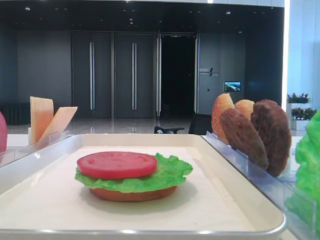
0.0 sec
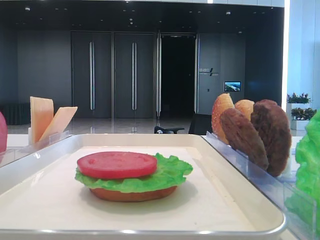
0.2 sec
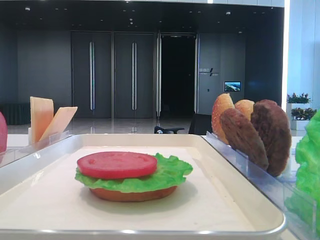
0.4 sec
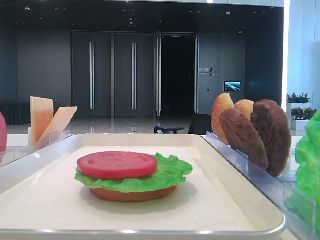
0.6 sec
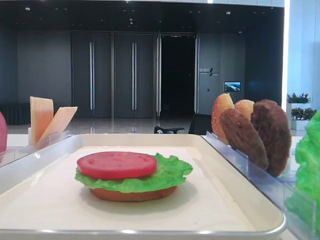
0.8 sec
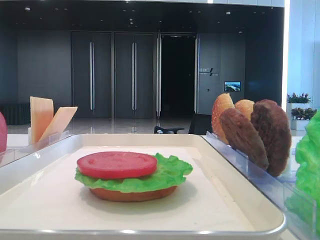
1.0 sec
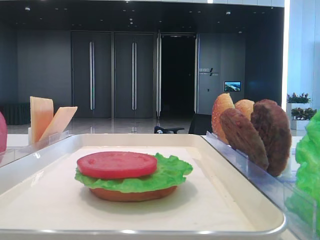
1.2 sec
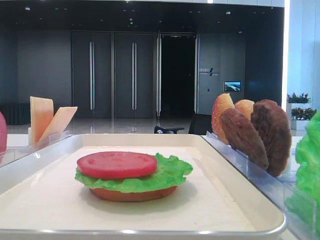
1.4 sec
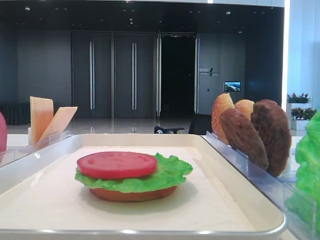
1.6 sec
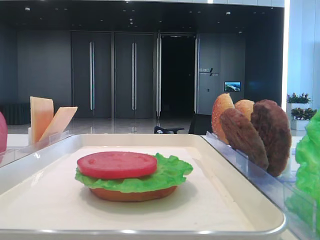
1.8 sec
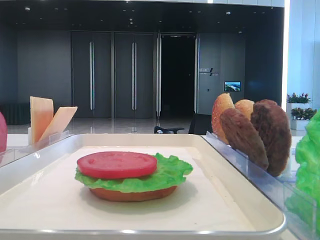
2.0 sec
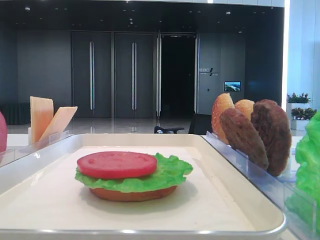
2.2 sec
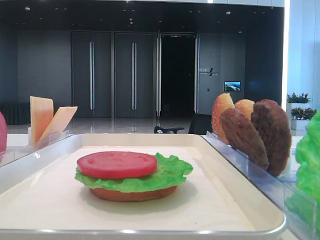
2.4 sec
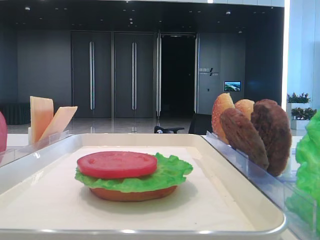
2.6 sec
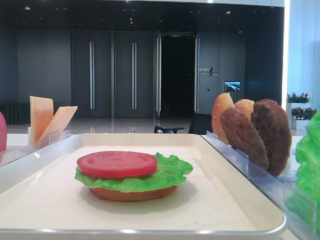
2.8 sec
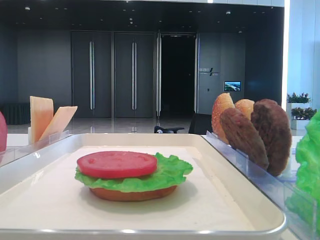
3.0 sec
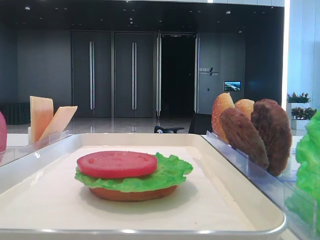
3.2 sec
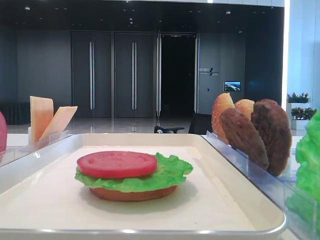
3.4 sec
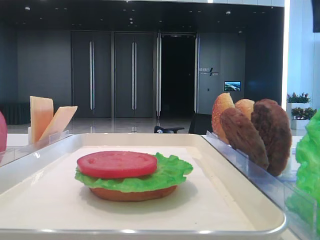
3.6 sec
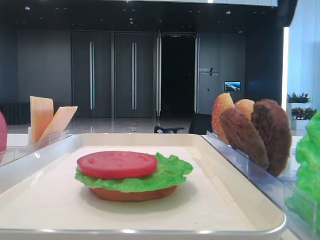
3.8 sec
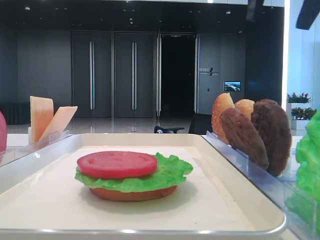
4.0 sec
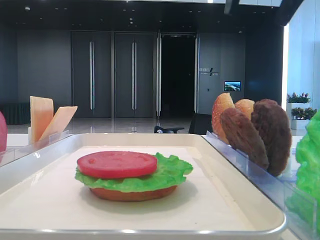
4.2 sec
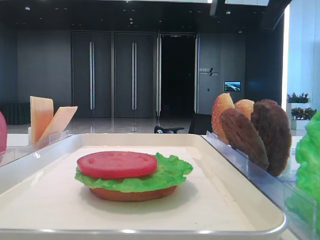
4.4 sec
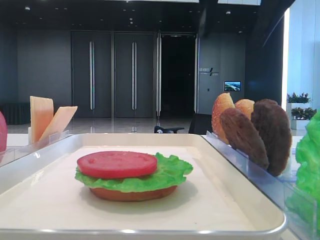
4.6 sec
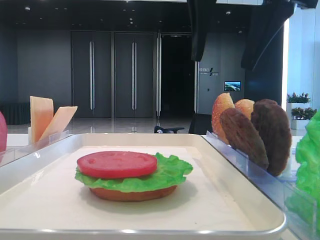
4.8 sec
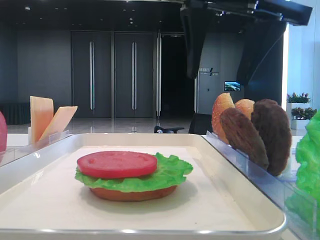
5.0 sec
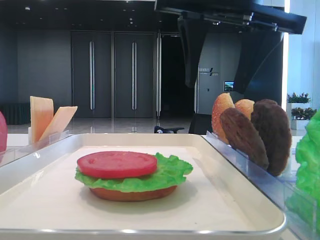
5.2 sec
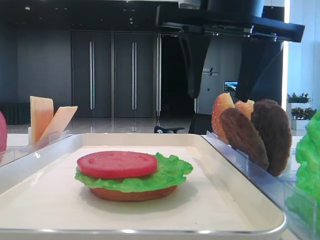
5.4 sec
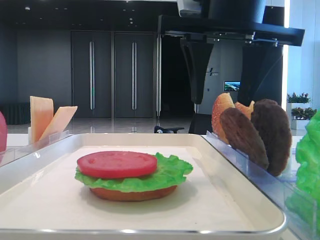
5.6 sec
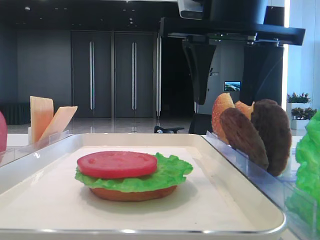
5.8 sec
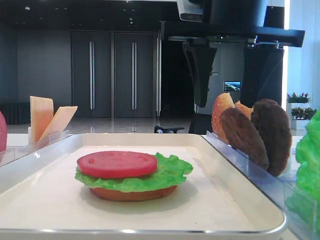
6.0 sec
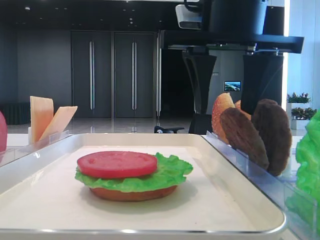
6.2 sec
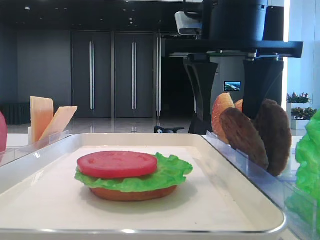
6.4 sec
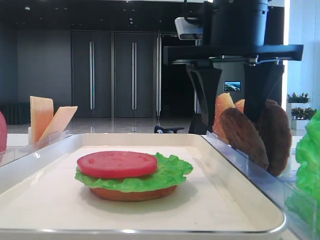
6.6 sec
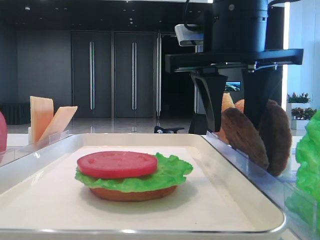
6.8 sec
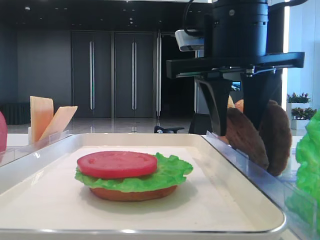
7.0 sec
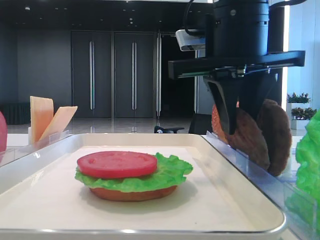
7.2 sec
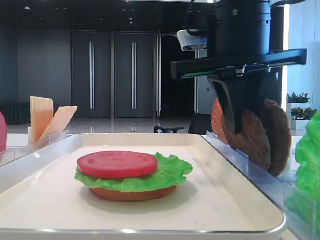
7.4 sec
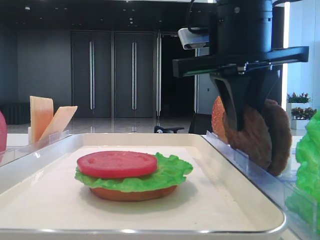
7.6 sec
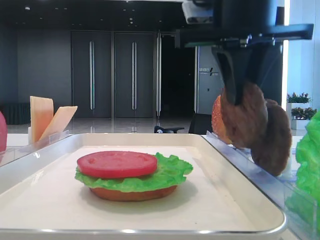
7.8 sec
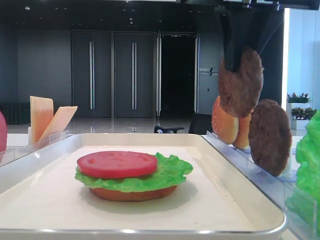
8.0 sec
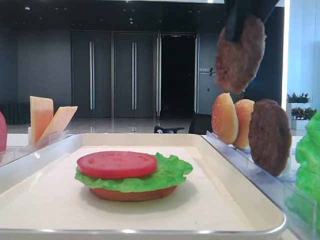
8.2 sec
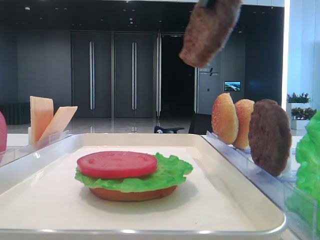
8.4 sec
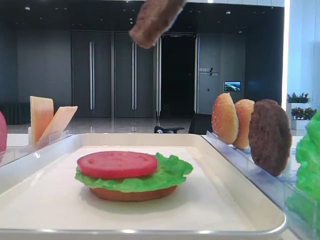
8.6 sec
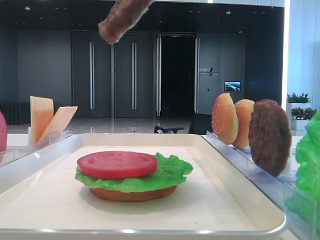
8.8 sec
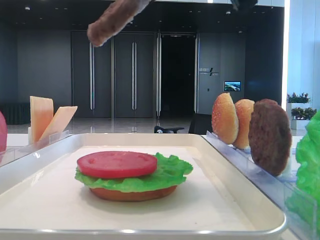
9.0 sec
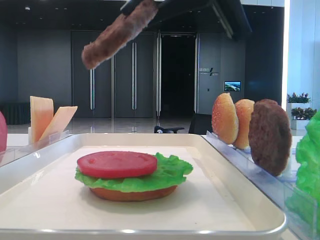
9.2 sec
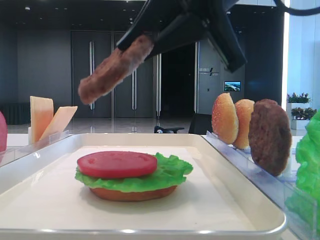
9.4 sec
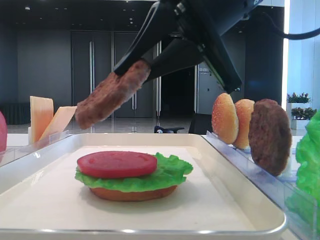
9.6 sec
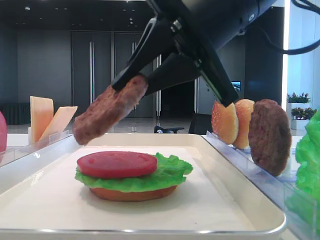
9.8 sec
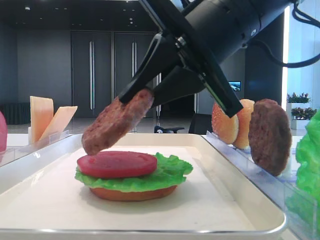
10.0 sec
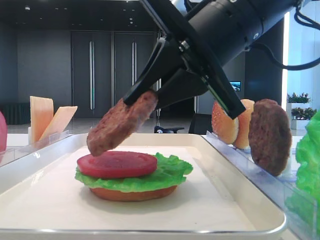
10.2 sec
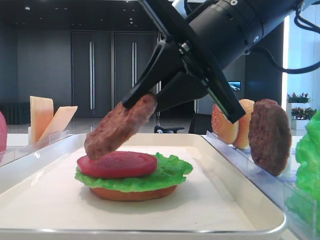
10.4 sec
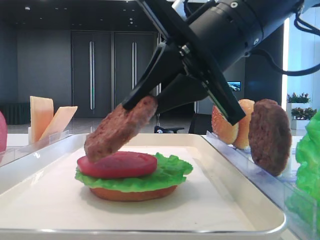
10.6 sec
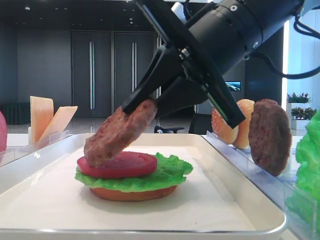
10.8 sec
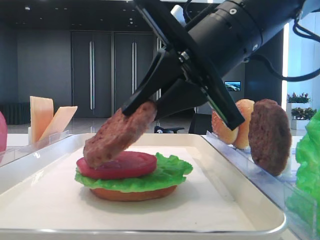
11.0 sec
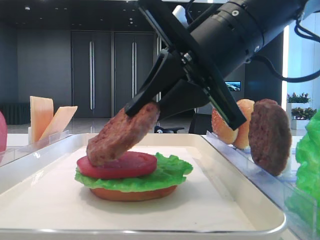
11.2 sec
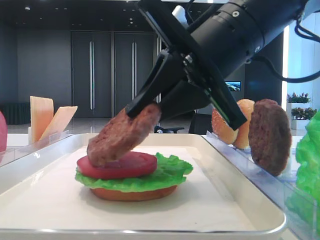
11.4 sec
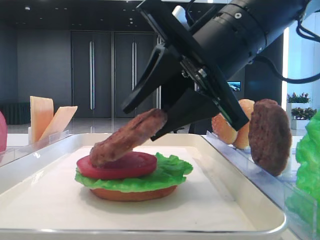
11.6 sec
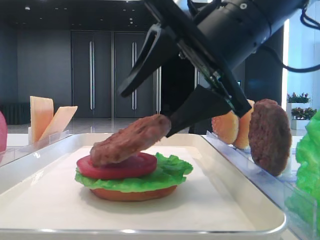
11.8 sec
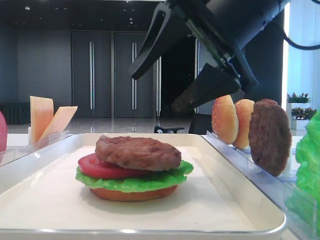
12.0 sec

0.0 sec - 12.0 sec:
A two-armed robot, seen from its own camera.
Step, 0.0 sec - 7.4 sec: Grab the patty with the right hand.
Step, 7.6 sec - 11.8 sec: Place the patty on the tomato slice with the right hand.
4.4 sec - 6.0 sec: The right gripper is displaced downward by roughly 10 cm.
6.0 sec - 7.6 sec: The right gripper closes.
7.6 sec - 9.0 sec: The right gripper is displaced upward and backward by approximately 10 cm.
9.0 sec - 10.4 sec: The right gripper shifts some 10 cm downward.
10.4 sec - 12.0 sec: The right gripper opens its fingers.

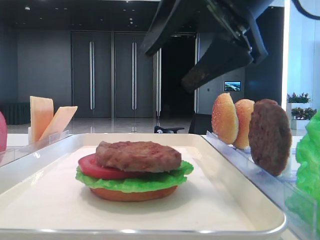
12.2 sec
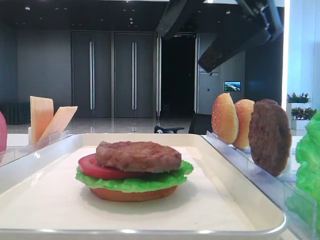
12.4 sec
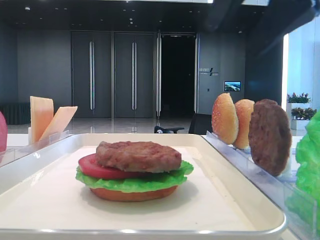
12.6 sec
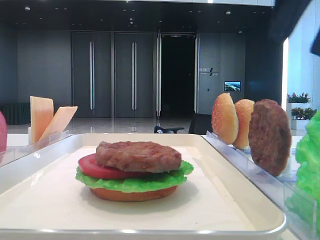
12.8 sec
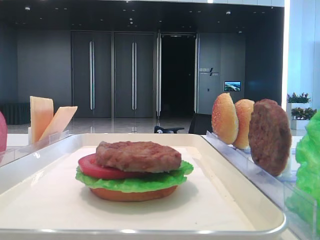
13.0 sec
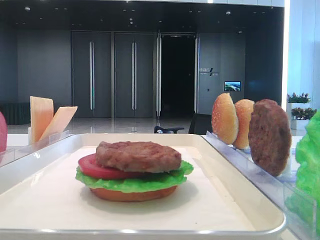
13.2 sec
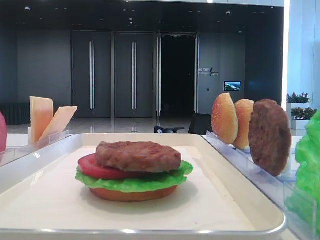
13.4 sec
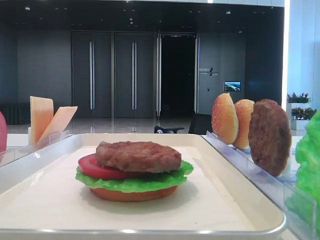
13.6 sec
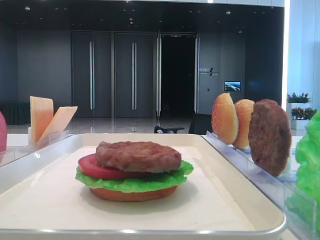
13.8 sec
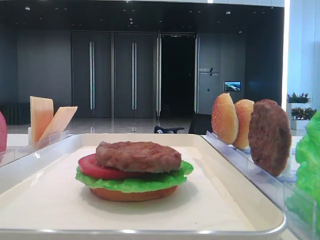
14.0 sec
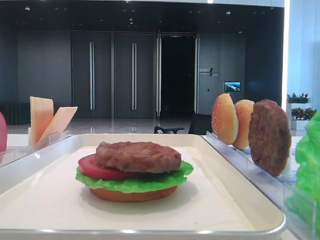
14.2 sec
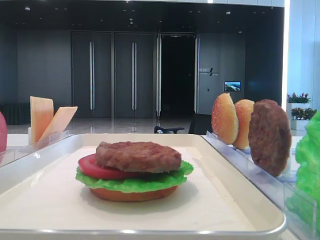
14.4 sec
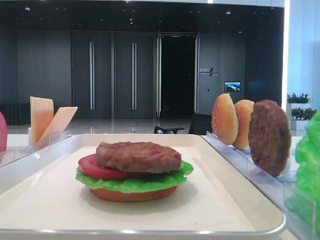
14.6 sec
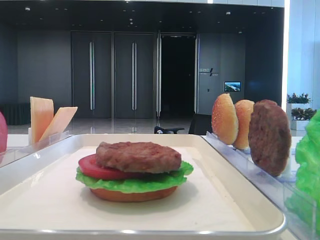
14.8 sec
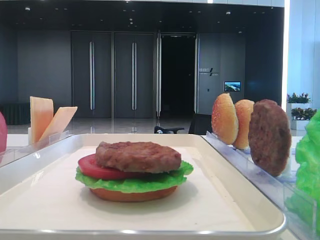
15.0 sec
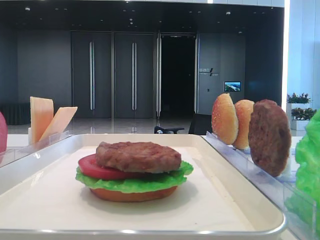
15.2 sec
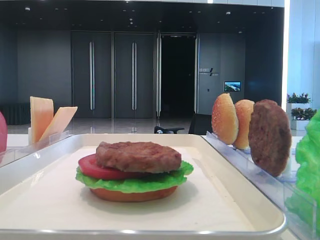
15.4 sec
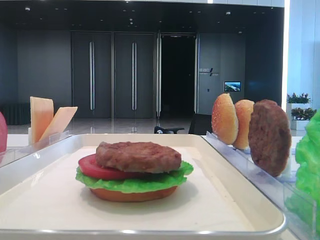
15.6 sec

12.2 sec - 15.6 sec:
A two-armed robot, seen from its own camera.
12.2 sec - 13.8 sec: The right gripper moves to the right, about 25 cm.

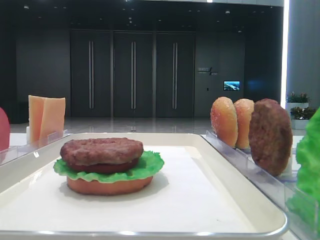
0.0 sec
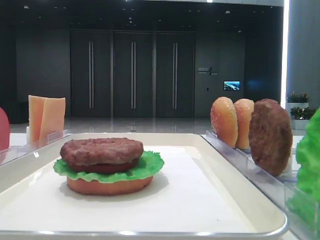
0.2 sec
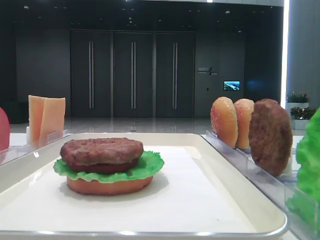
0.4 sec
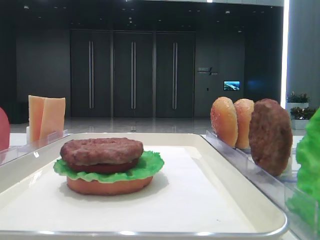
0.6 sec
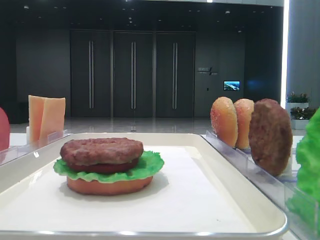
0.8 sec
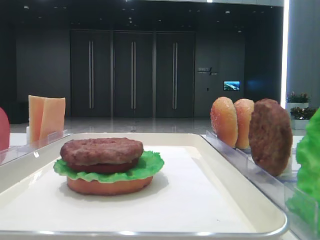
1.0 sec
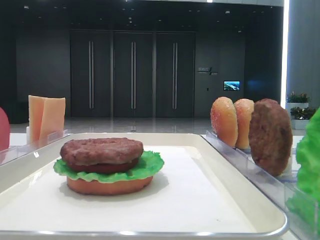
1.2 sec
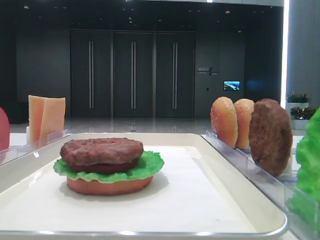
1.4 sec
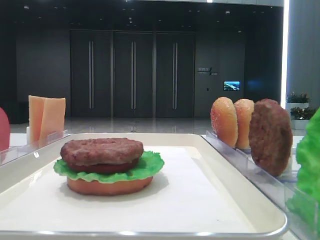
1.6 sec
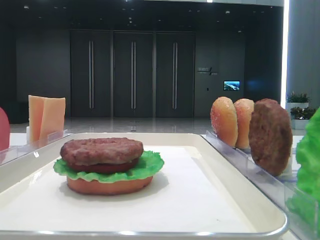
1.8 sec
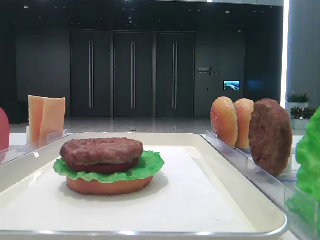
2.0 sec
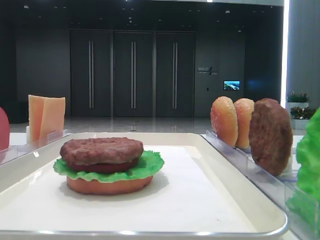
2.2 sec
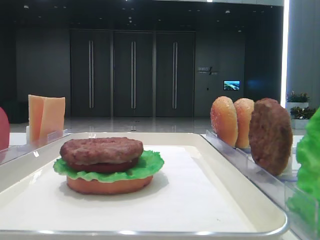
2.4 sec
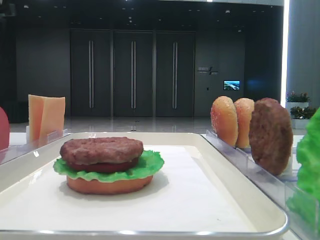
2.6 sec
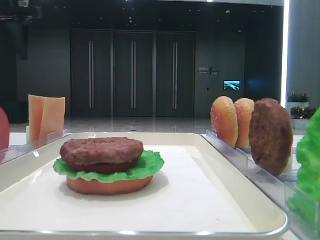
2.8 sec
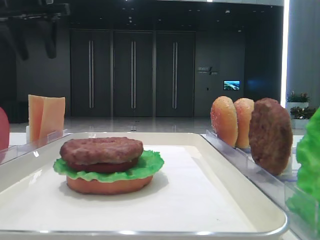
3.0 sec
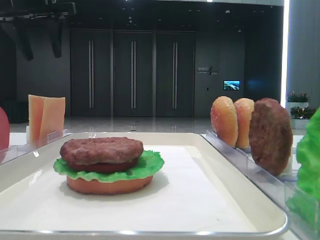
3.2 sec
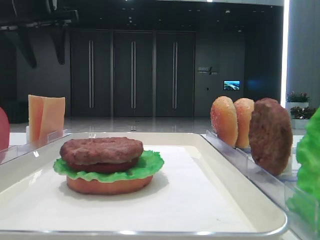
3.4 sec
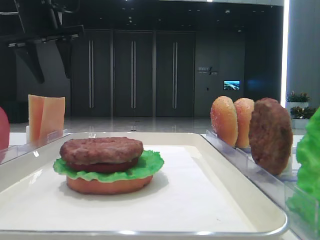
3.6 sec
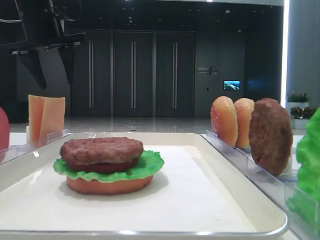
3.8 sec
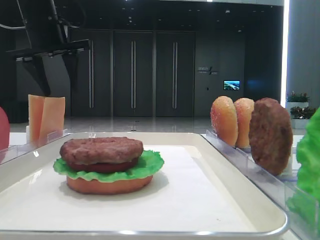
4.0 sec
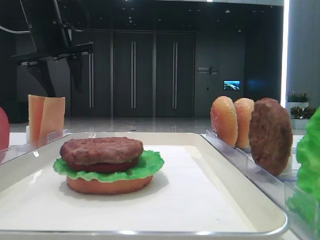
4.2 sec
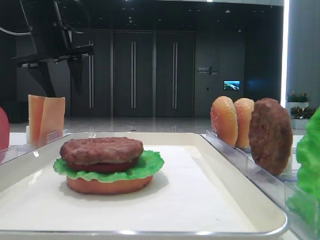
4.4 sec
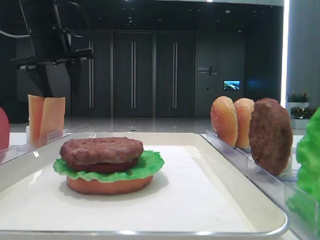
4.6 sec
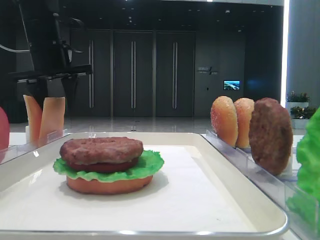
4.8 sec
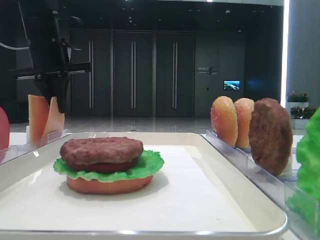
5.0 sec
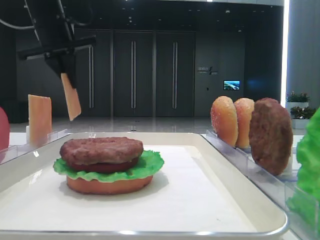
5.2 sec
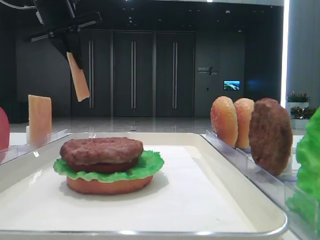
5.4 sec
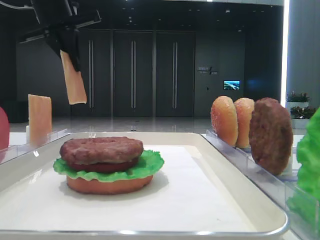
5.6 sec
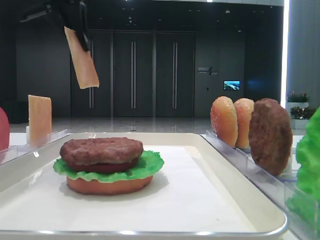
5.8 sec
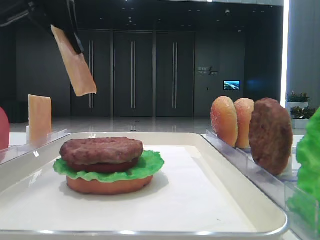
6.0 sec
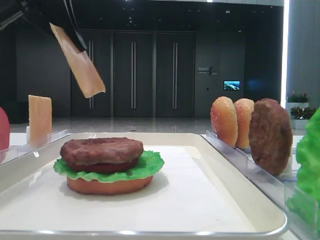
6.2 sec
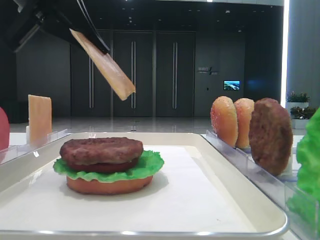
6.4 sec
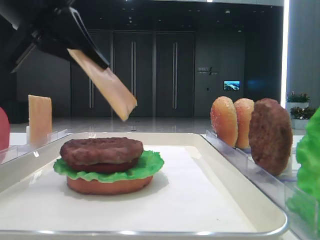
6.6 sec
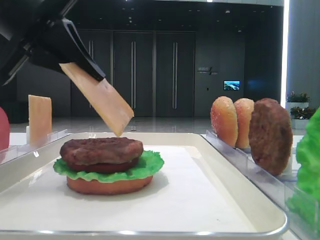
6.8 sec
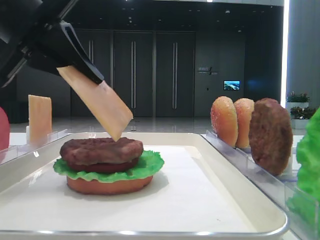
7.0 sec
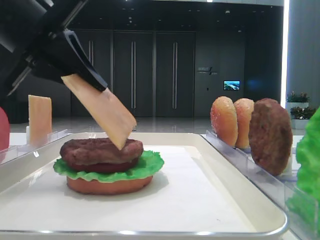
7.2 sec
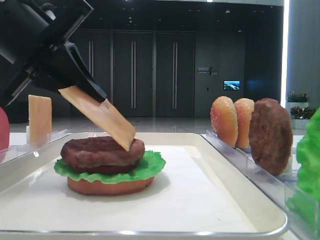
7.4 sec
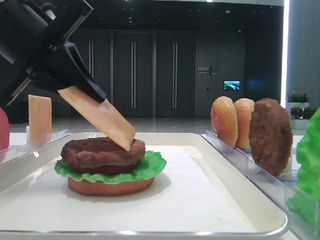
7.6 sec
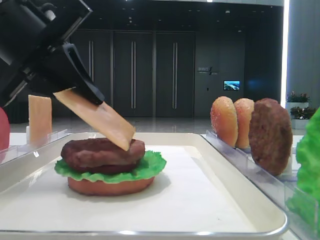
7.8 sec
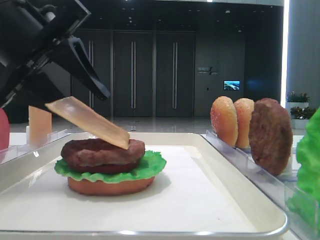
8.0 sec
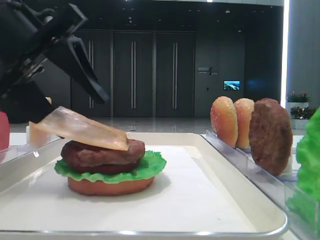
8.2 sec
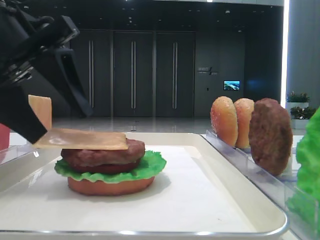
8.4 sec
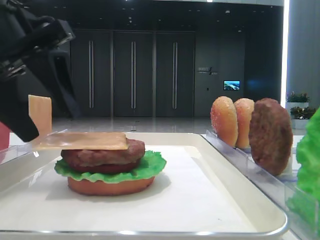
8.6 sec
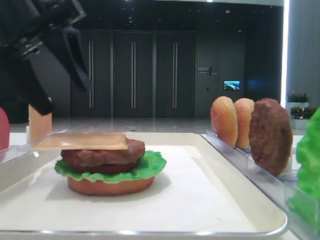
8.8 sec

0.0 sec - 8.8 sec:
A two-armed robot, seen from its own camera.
Step, 0.0 sec - 5.0 sec: Pick up the cheese slice with the left hand.
Step, 5.2 sec - 8.4 sec: Place the cheese slice on the patty with the left hand.
1.4 sec - 3.0 sec: The left gripper is displaced forward by approximately 40 cm.
3.0 sec - 4.4 sec: The left gripper heads downward, covering about 5 cm.
4.4 sec - 5.8 sec: The left gripper travels backward and upward by some 10 cm, and closes its fingers.
5.8 sec - 7.4 sec: The left gripper heads downward and backward, covering approximately 15 cm.
7.4 sec - 8.8 sec: The left gripper opens.
